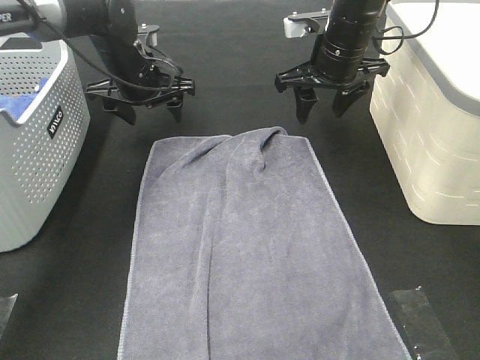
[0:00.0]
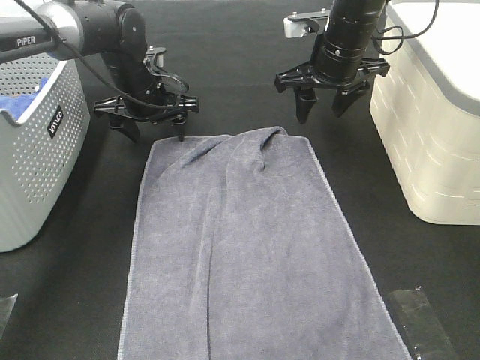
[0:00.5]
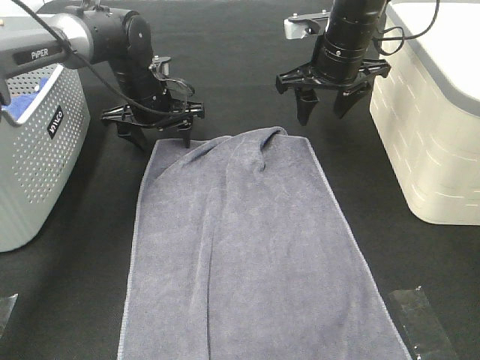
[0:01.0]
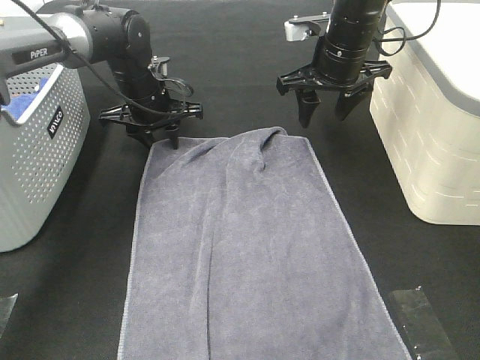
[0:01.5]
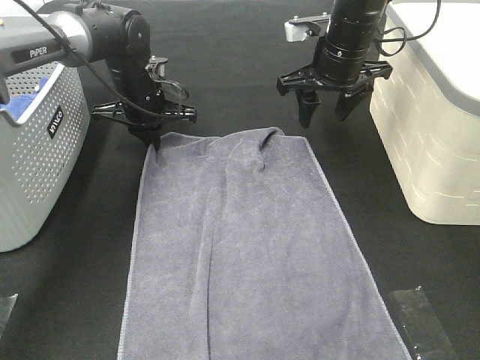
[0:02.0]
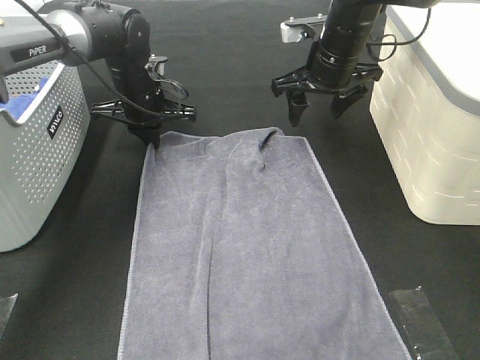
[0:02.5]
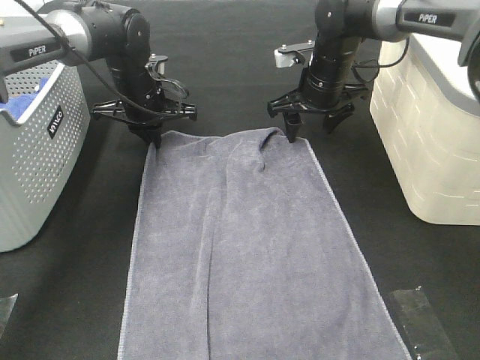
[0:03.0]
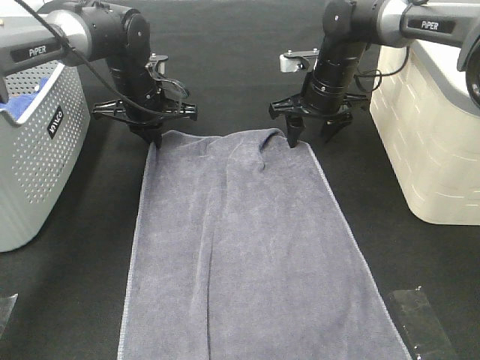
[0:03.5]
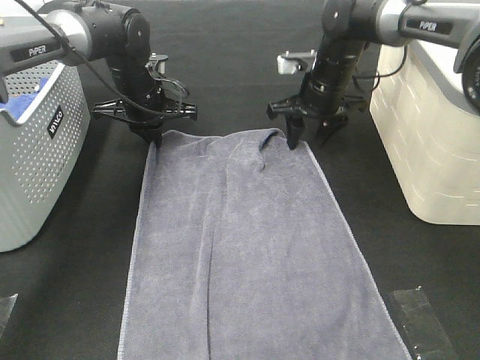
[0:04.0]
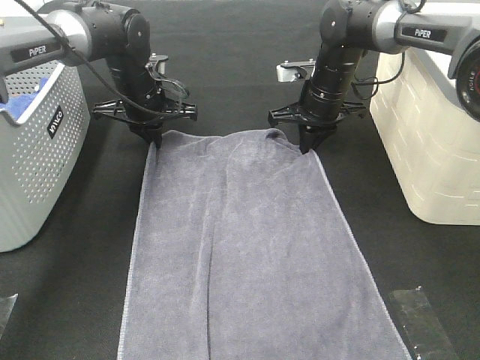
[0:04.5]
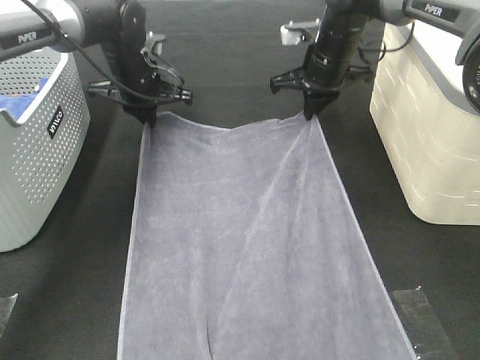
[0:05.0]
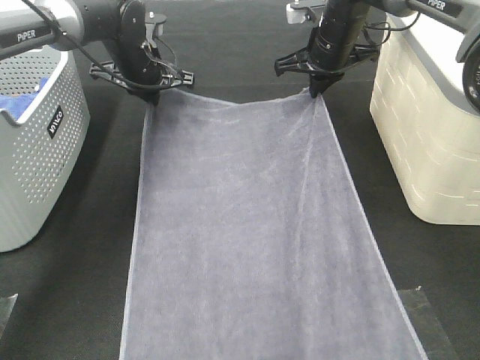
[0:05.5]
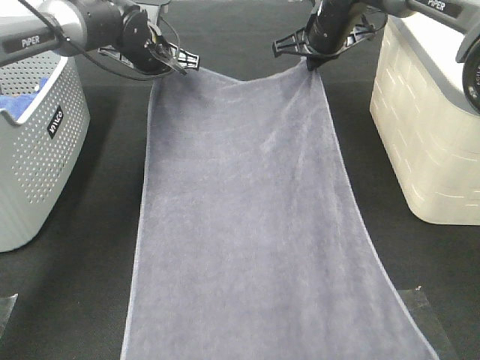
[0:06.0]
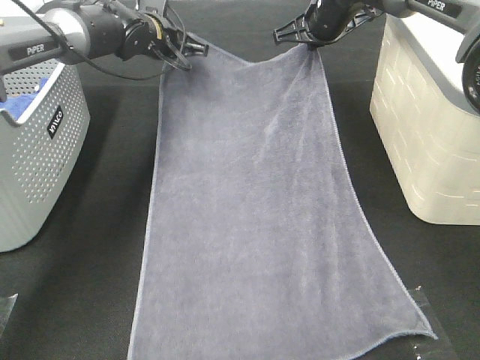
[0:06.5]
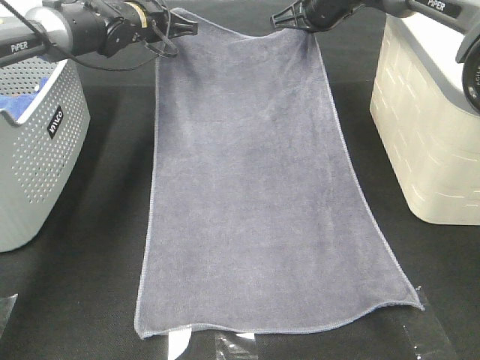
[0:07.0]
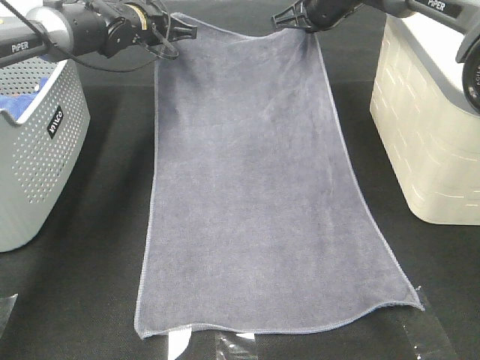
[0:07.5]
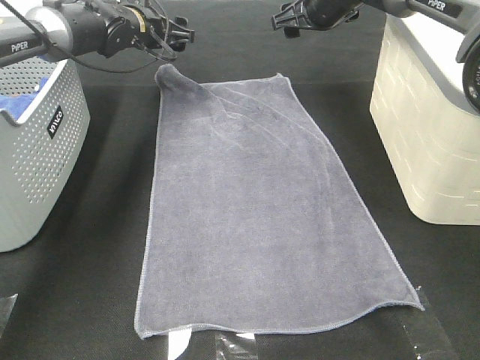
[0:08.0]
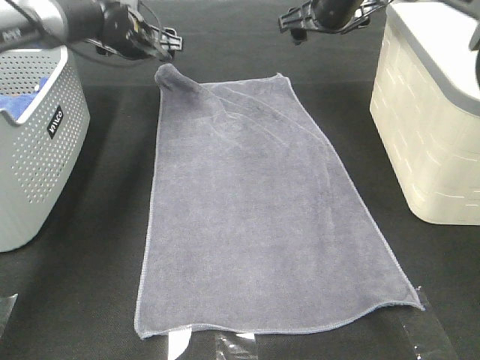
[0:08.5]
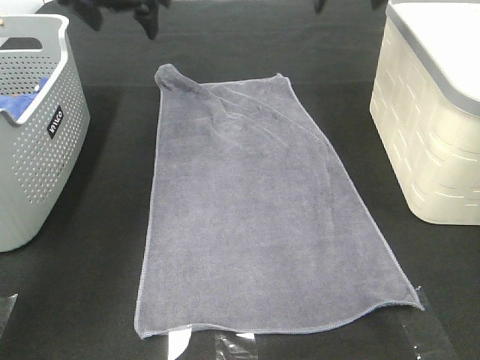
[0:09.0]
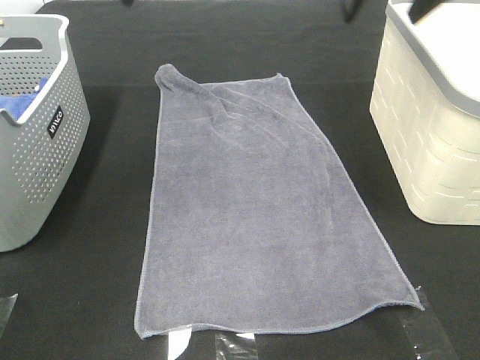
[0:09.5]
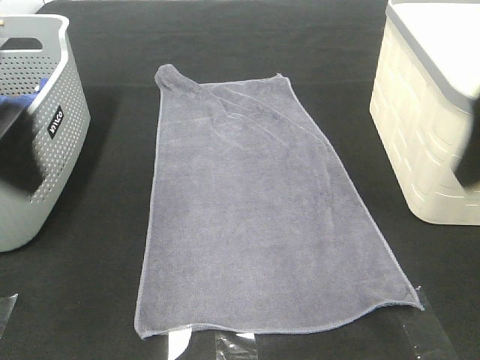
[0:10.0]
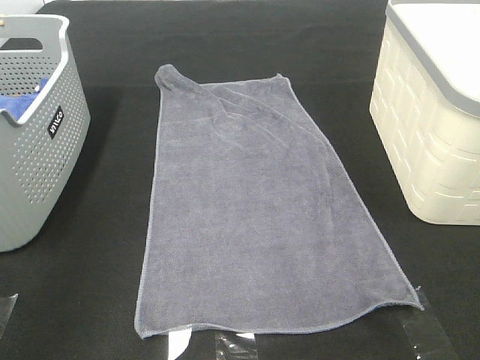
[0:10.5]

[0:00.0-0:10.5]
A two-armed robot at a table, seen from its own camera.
Task of the whole recording: Remove the towel and place it.
0:00.0 to 0:02.0: The left gripper closes.
0:02.0 to 0:04.0: The right gripper shifts about 5 cm downward.
0:04.0 to 0:06.5: The left gripper heads forward and upward, covering approximately 10 cm. Meanwhile the right gripper moves upward and forward, some 10 cm, and closes.
0:06.5 to 0:08.5: The left gripper opens, while the right gripper opens.
0:08.5 to 0:10.5: The two grippers go about 50 cm backward.

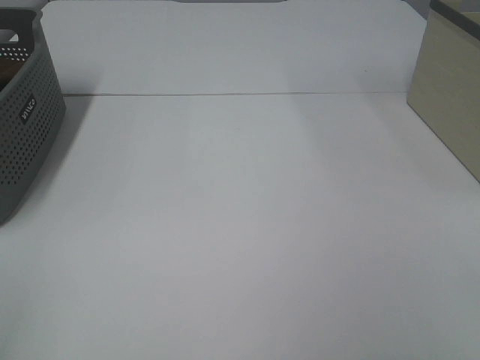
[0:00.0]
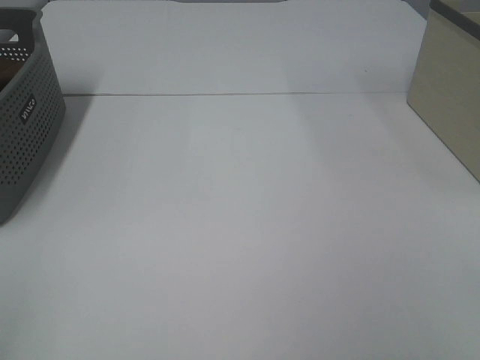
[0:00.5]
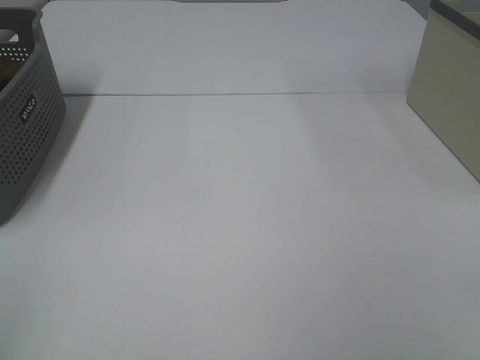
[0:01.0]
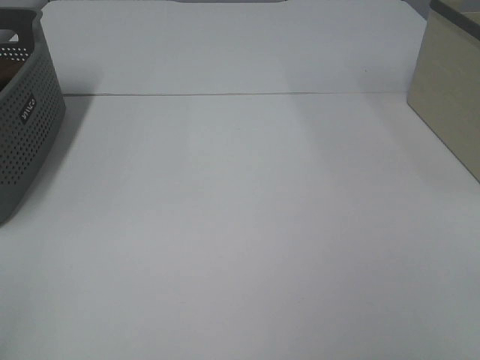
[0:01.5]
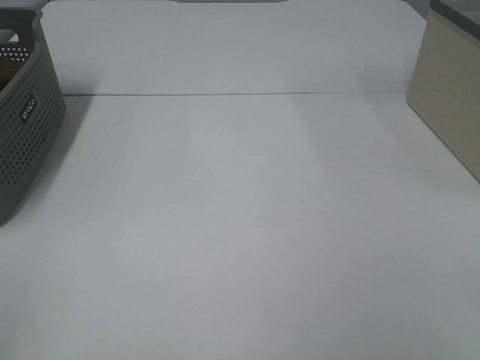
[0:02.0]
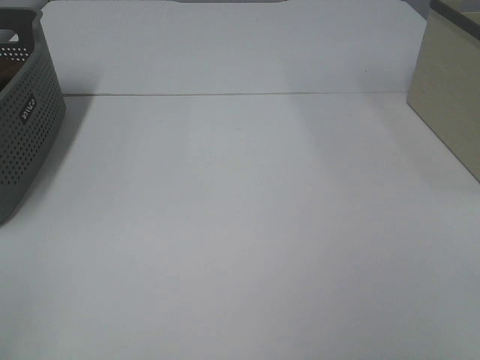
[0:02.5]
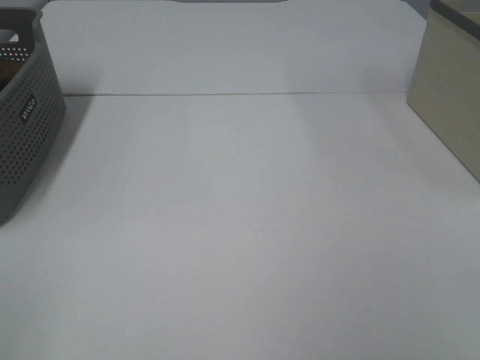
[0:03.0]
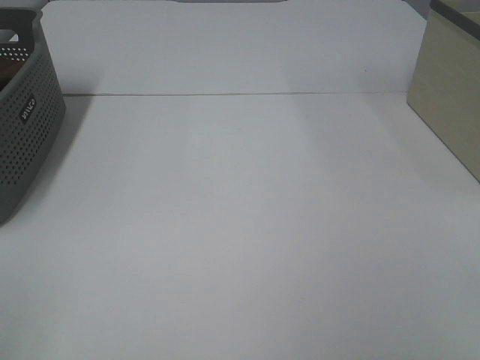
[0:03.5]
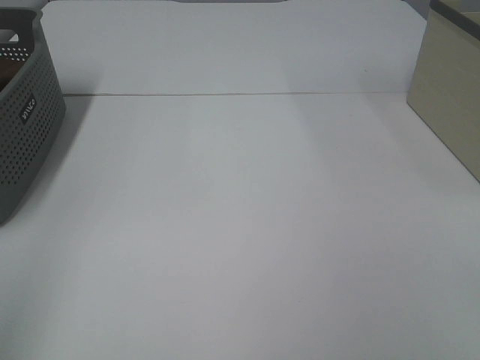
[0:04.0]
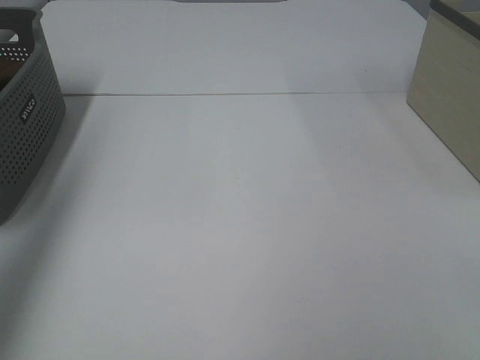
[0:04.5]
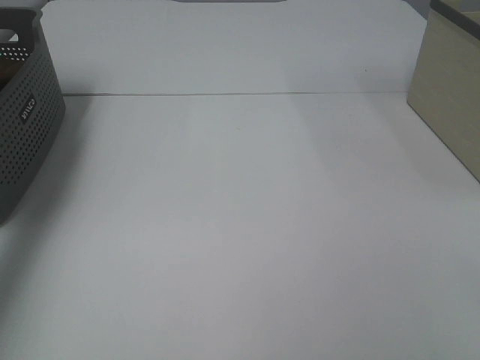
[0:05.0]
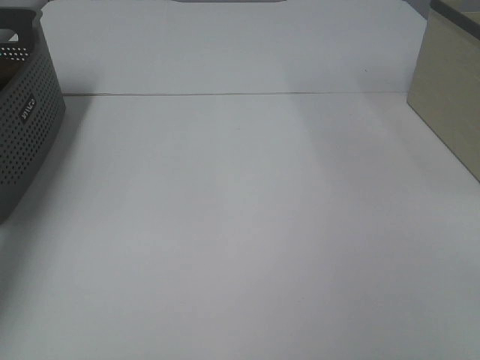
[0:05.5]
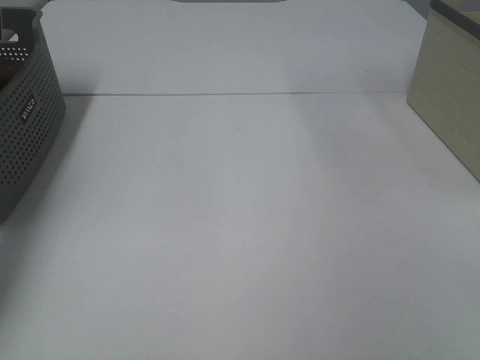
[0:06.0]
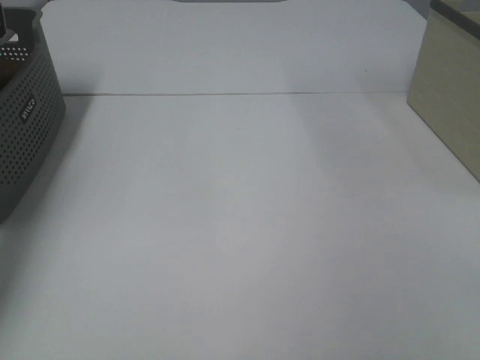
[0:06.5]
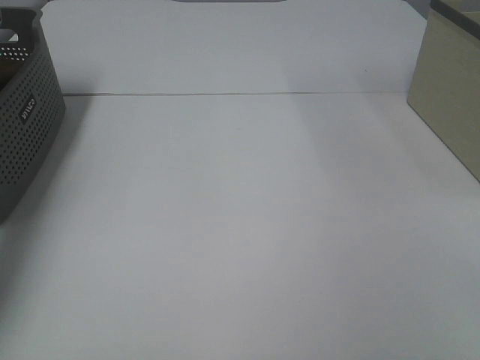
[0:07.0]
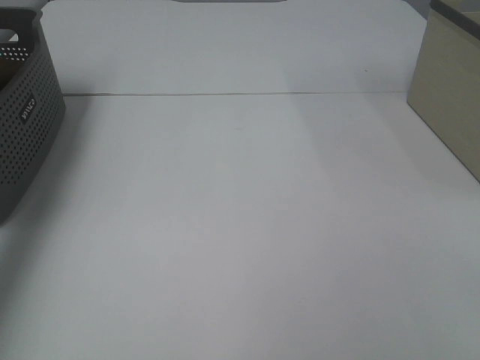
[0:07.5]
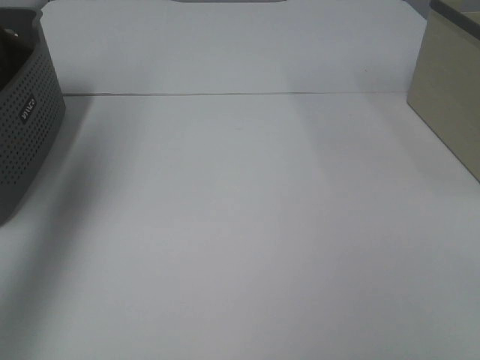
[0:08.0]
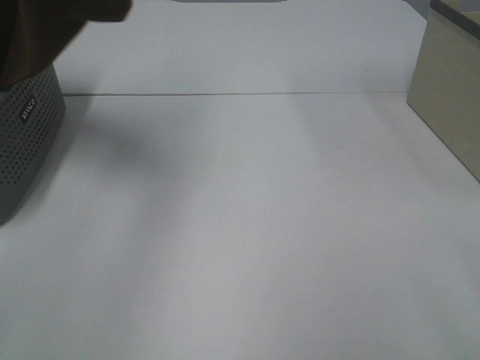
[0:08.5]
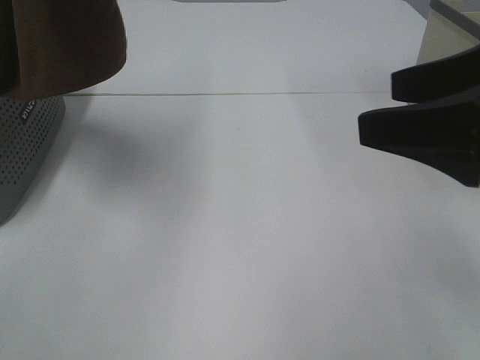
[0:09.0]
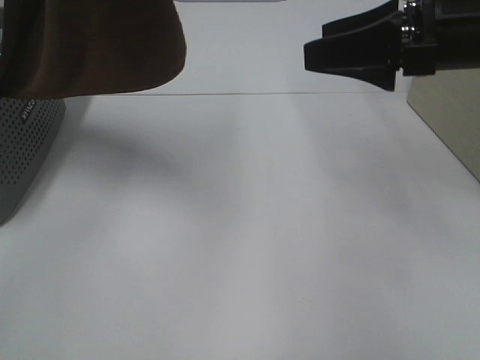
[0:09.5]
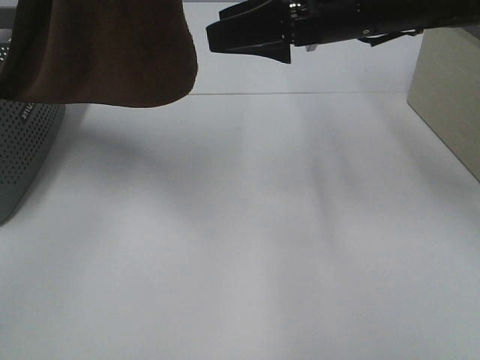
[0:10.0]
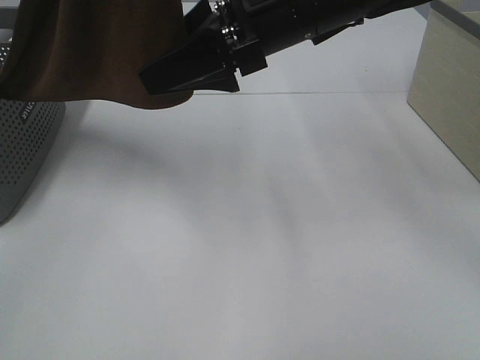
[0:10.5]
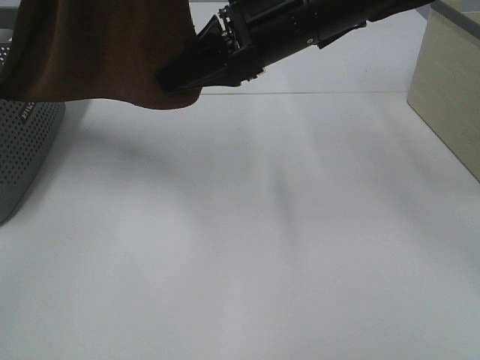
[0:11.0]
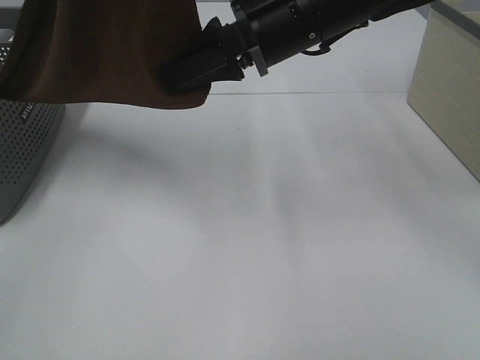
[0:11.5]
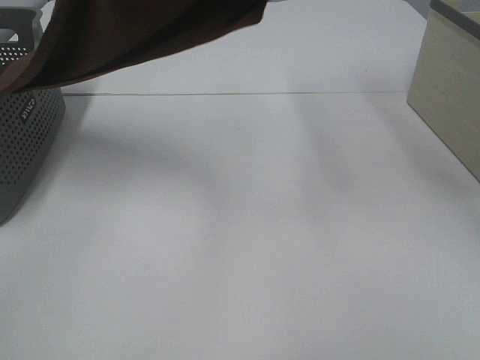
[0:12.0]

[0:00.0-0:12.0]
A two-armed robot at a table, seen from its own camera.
Task of the whole recording: Remove the towel and place it.
Step, 0:08.5 to 0:11.5: Right hand: grab a corner of the brown towel and straighten it.
0:00.0 to 0:02.0: Both grippers stay put.
0:04.0 to 0:06.0: The left gripper heads forward, covering approximately 40 cm, and closes up.
0:06.0 to 0:08.0: The left gripper goes some 30 cm upward and backward, and closes up.
0:08.0 to 0:10.0: The right gripper heads forward and to the left, covering some 40 cm. Meanwhile the left gripper goes about 20 cm to the right.
0:10.0 to 0:12.0: The right gripper shifts about 10 cm upward, and closes up.

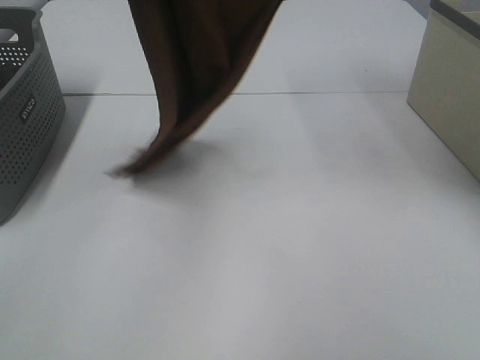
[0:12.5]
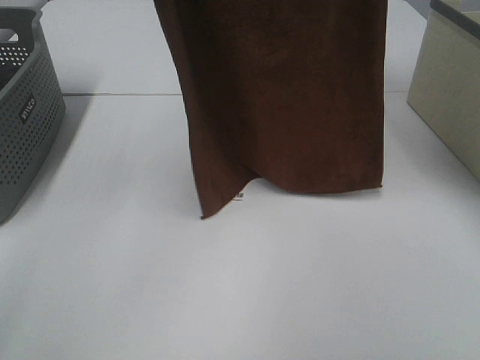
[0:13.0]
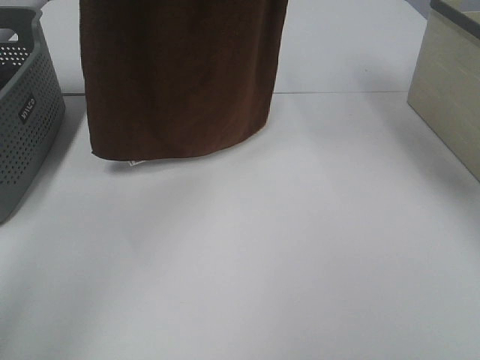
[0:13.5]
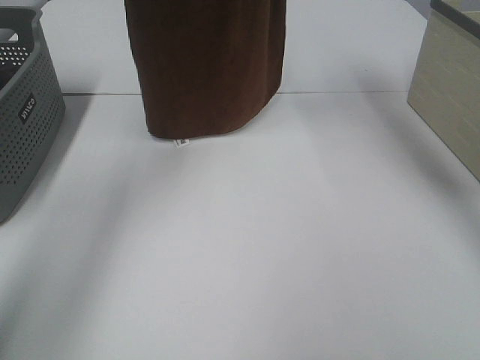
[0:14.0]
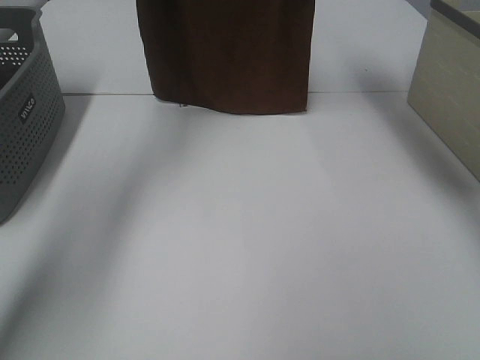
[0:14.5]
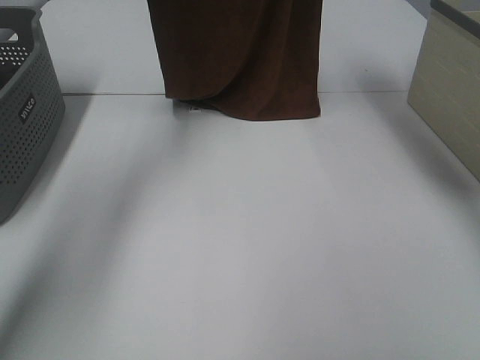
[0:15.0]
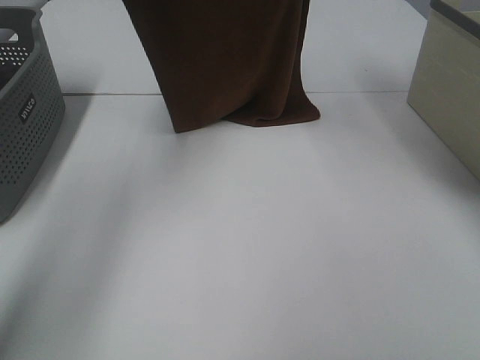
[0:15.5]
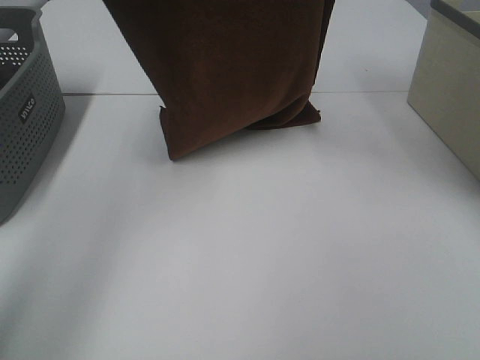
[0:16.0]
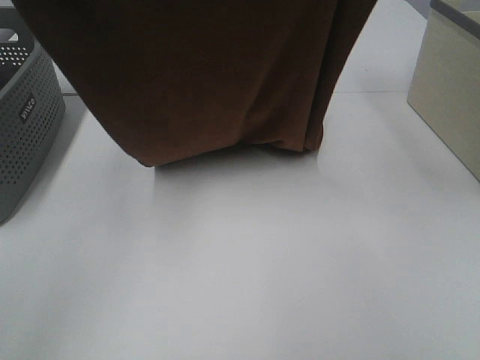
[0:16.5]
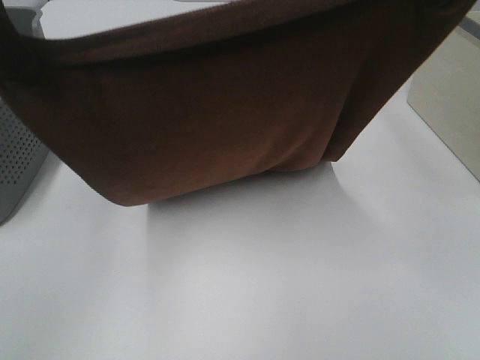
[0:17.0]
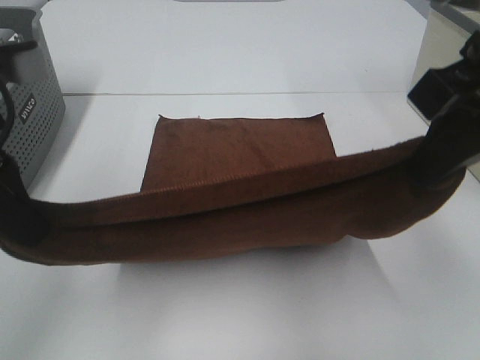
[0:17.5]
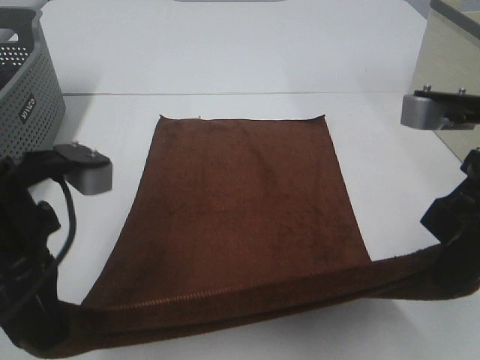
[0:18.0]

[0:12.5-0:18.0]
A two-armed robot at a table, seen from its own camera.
Task of the whole recording: Remove the towel and place it.
Step, 0:12.5 to 0:16.0: Left hand: spread the brown towel flat on the table.
Step, 0:12.5 to 0:16.0: Right hand: spread the brown towel flat on the table.
0:12.5 to 0:14.5: The left gripper shifts approximately 20 cm forward. The right gripper moves forward, some 15 cm.
0:14.5 to 0:16.0: Both grippers move backward, approximately 10 cm.
0:16.0 to 0:18.0: The right gripper heads downward and backward, covering approximately 30 cm, while the left gripper heads backward and downward, covering roughly 30 cm.
